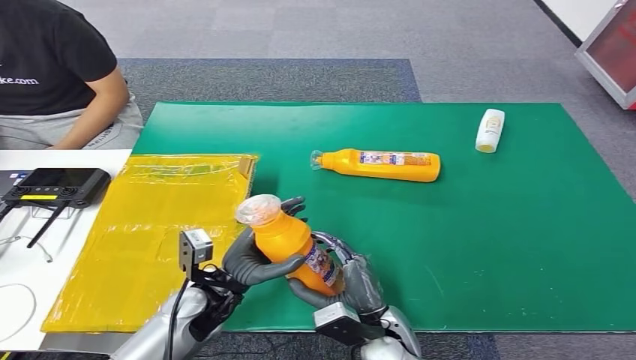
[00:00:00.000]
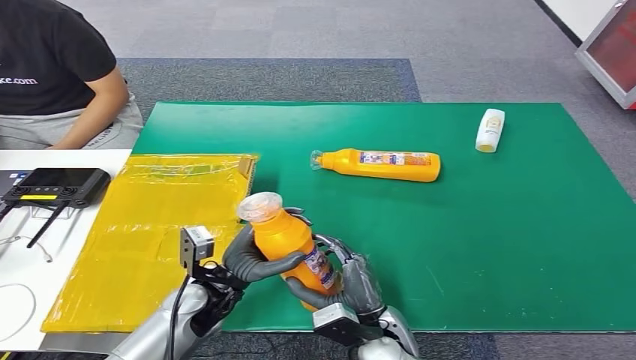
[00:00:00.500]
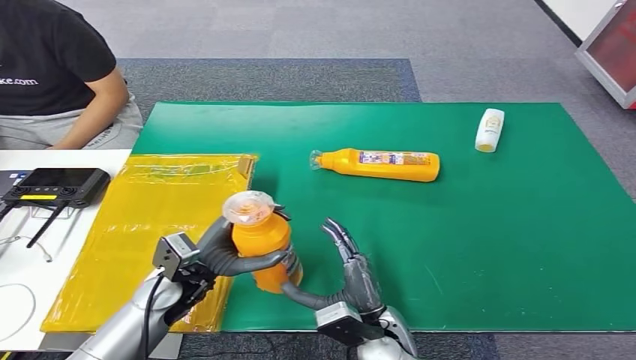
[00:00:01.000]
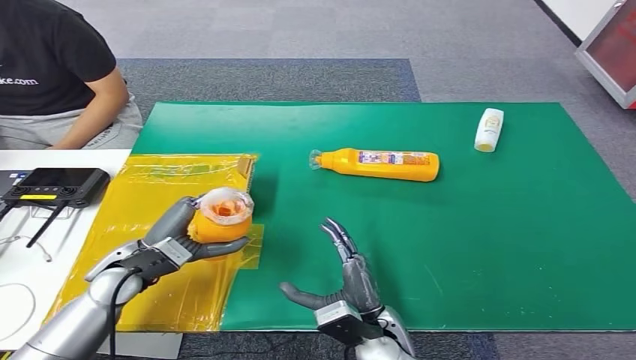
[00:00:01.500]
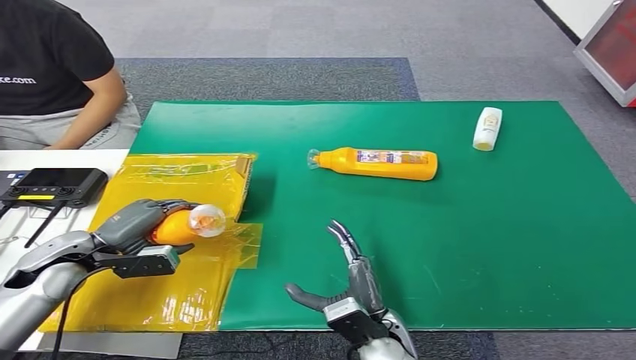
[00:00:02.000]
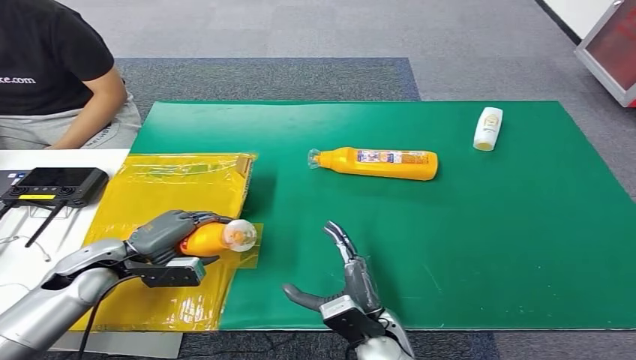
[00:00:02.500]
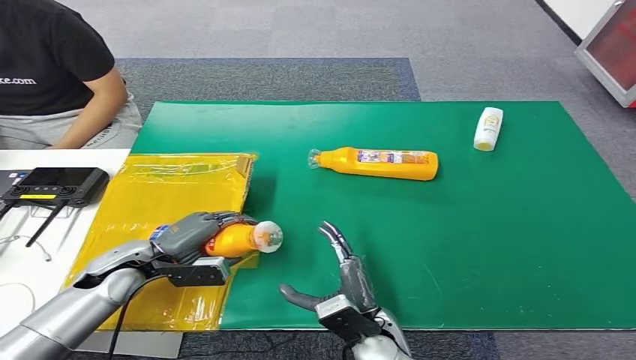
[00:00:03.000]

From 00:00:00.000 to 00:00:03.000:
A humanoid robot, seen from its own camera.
Step, from 00:00:00.000 to 00:00:03.000: Turn the bottle to the front side.
From 00:00:00.000 to 00:00:01.500: The left hand moves to the left, approximately 10 cm.
From 00:00:01.500 to 00:00:03.000: The left hand moves about 10 cm to the left and comes back.

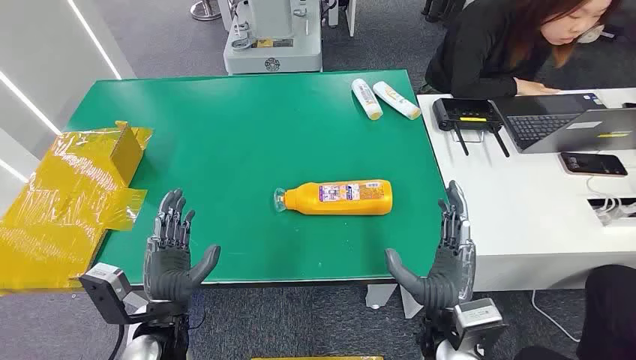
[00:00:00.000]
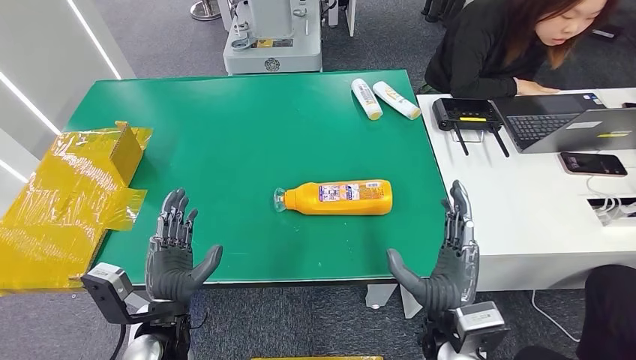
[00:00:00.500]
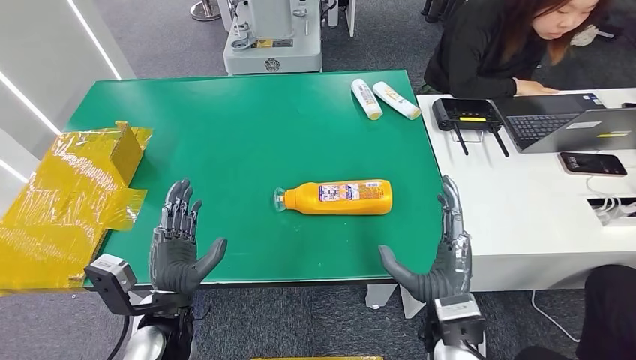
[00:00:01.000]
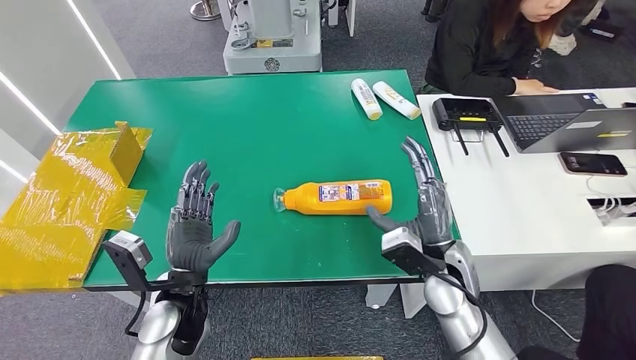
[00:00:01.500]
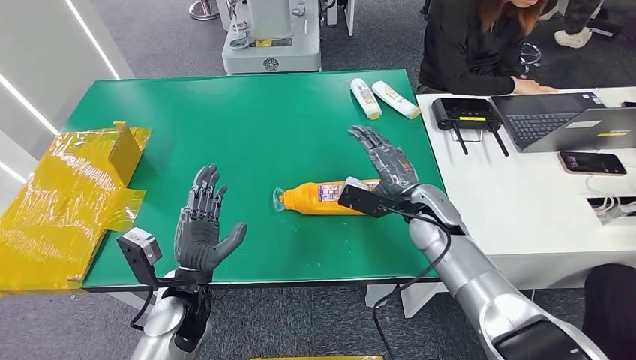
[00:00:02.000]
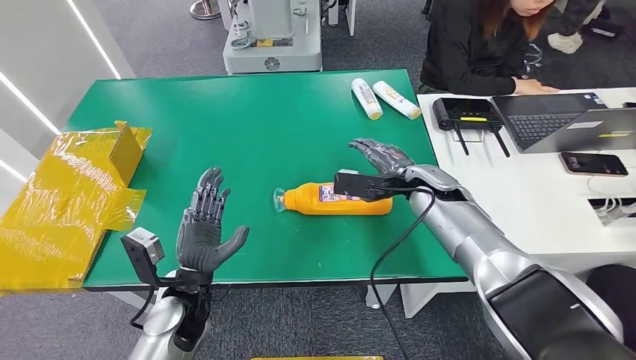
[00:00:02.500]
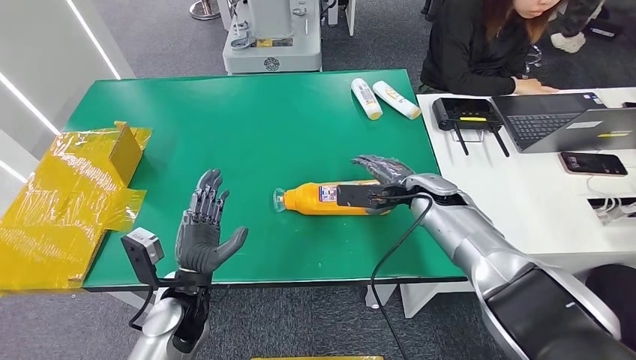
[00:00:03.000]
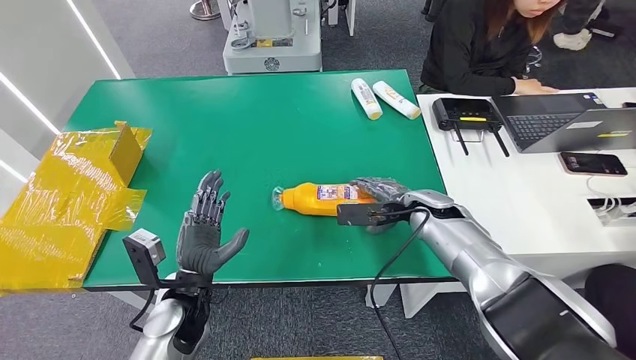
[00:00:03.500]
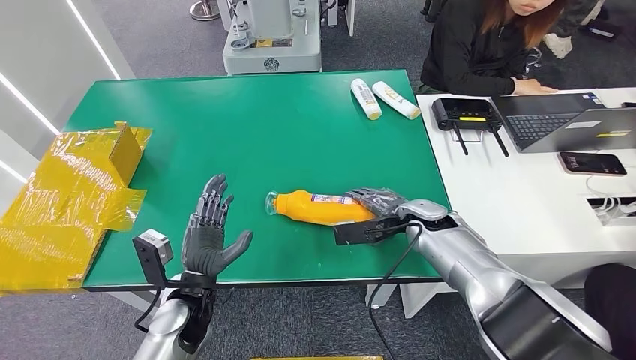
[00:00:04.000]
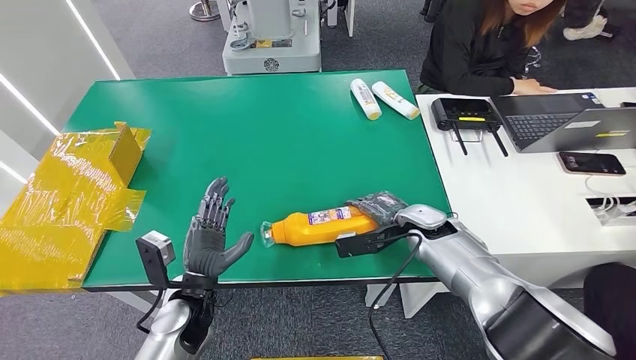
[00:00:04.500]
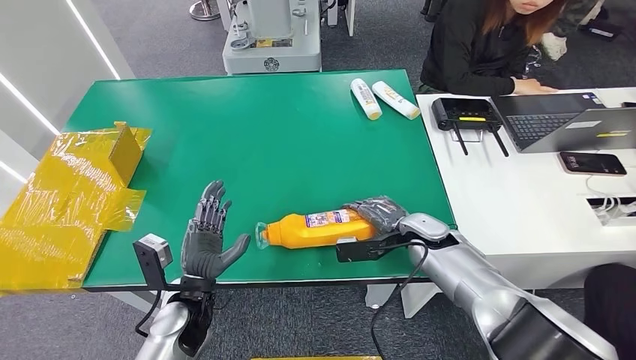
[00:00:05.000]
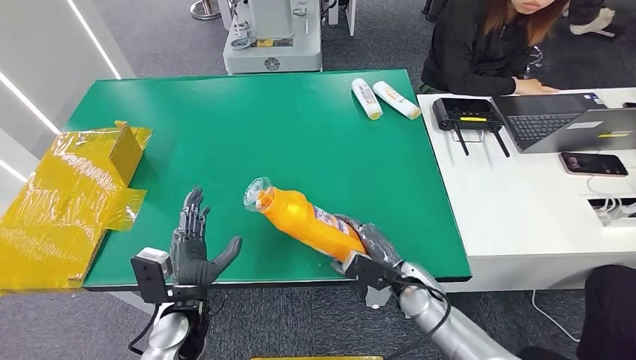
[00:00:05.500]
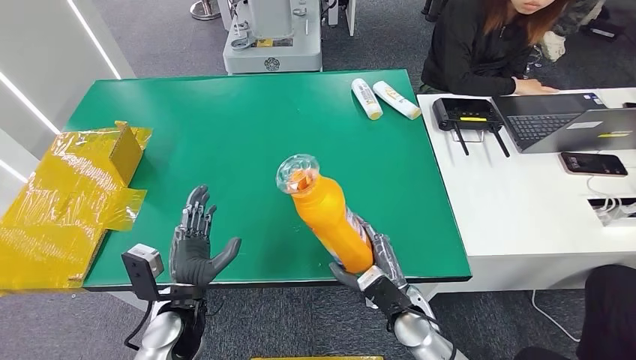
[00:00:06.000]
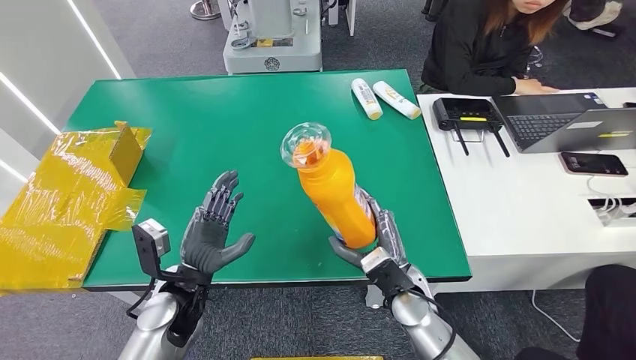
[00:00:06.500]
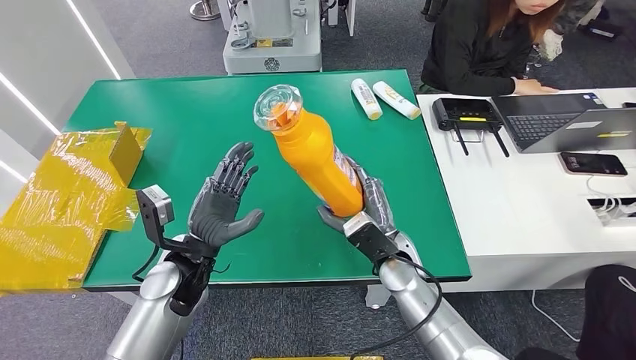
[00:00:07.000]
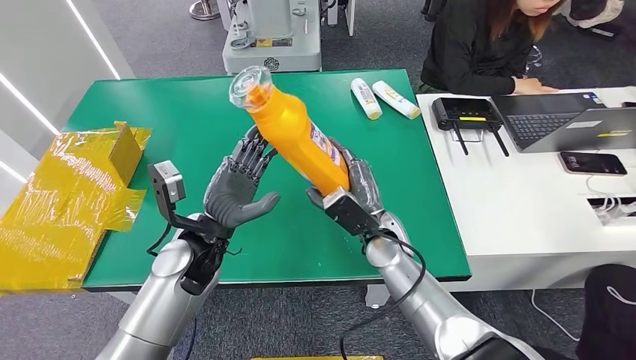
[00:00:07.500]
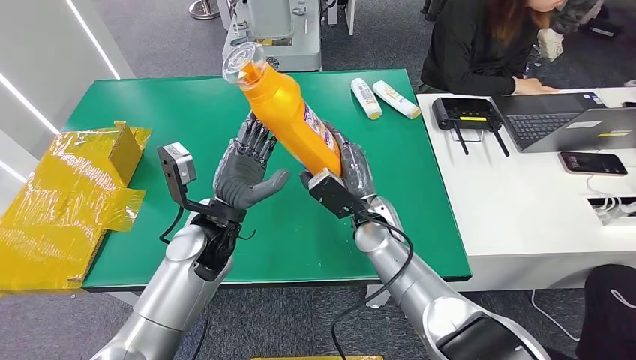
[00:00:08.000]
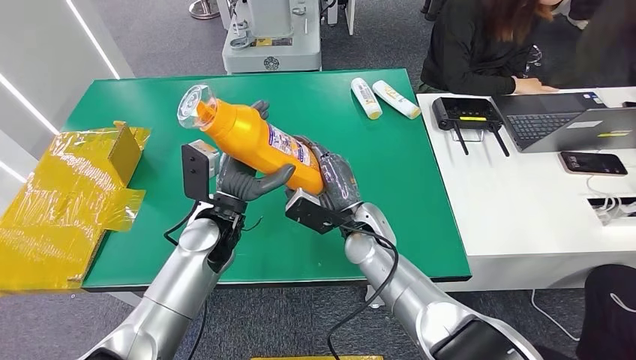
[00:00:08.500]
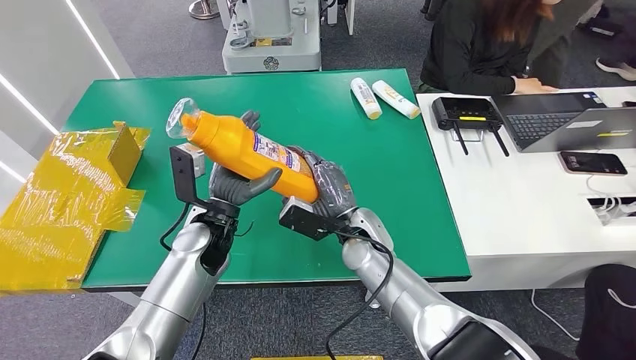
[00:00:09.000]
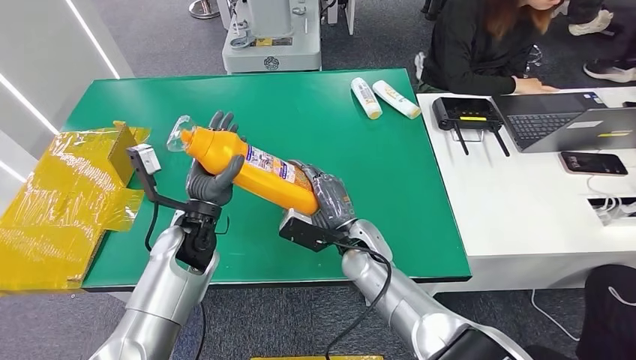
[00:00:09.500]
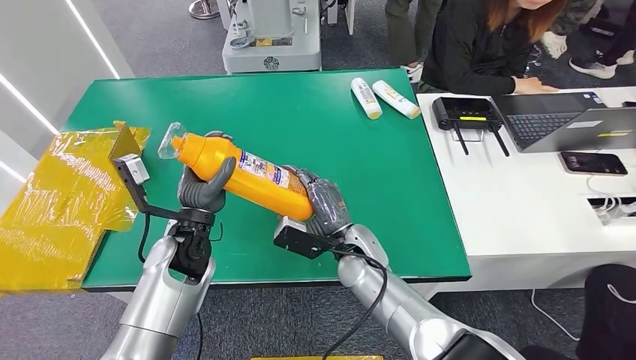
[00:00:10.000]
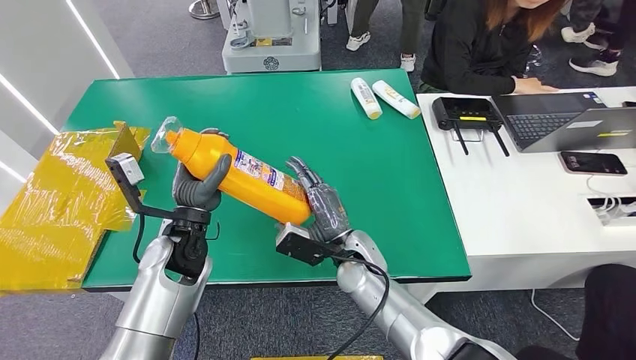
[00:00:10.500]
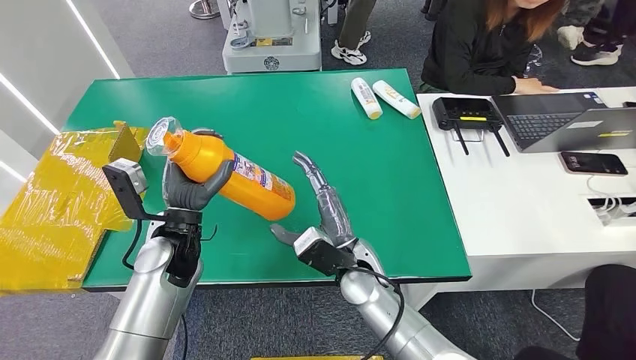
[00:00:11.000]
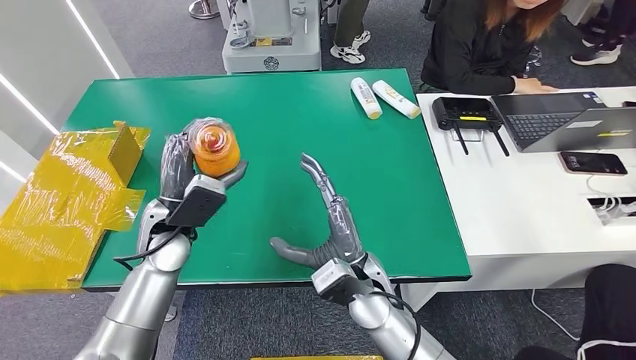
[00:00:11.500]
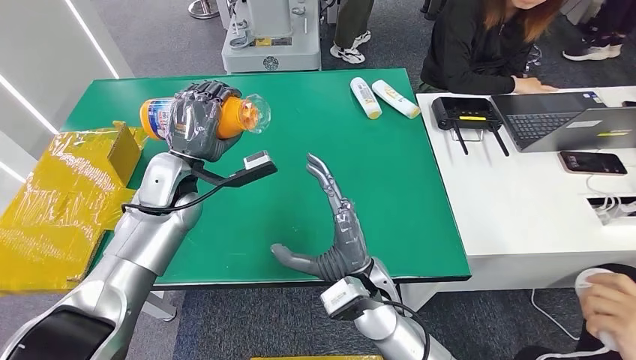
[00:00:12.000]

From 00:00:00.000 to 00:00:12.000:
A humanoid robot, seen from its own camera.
Step, from 00:00:00.000 to 00:00:06.000: Pick up the bottle from the table.
From 00:00:04.000 to 00:00:06.000: The right hand goes roughly 15 cm backward and downward.
From 00:00:06.000 to 00:00:08.000: The right hand goes some 20 cm forward, upward and to the left; the left hand is displaced upward, forward and to the right by about 15 cm.

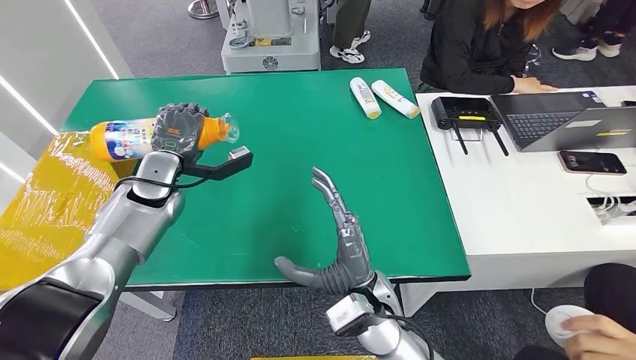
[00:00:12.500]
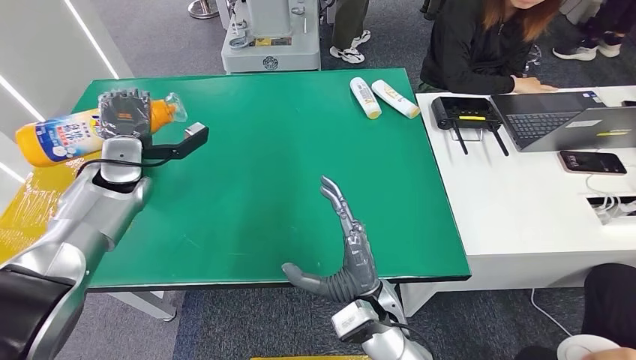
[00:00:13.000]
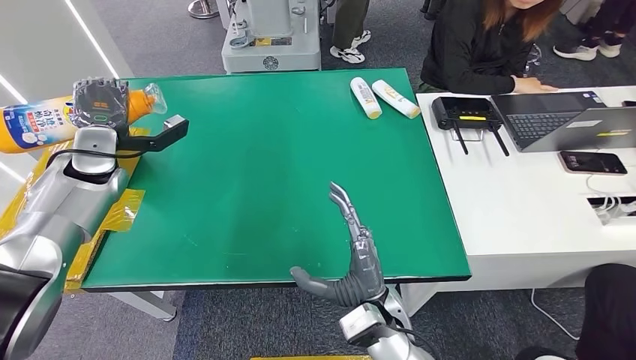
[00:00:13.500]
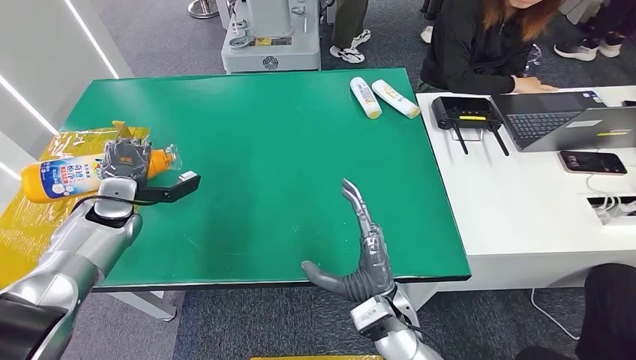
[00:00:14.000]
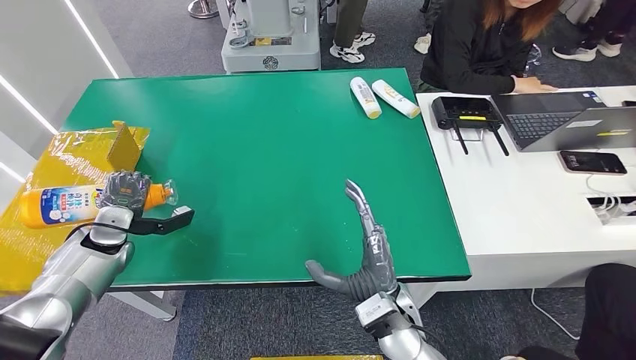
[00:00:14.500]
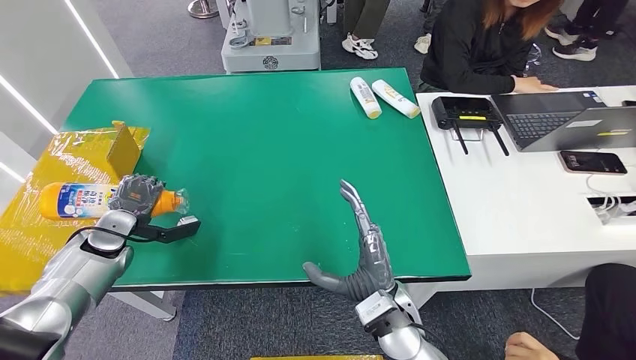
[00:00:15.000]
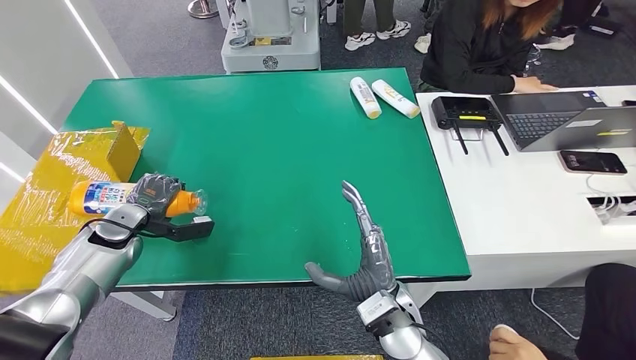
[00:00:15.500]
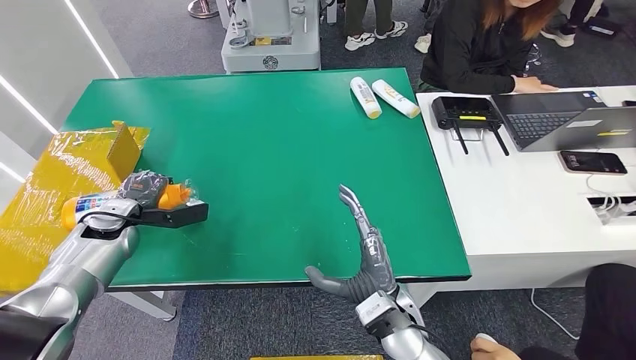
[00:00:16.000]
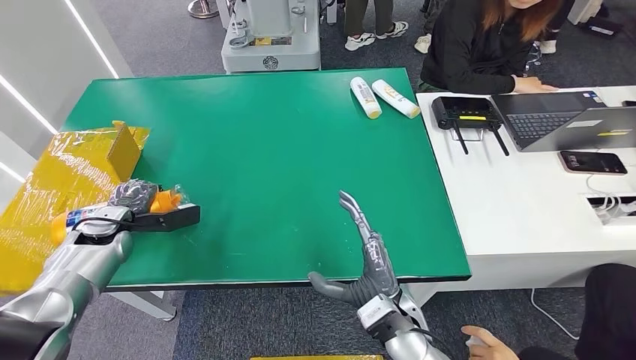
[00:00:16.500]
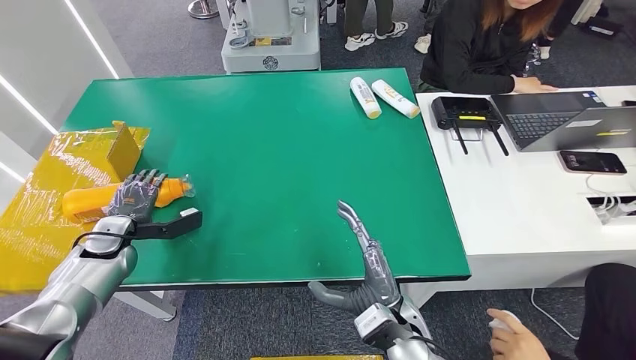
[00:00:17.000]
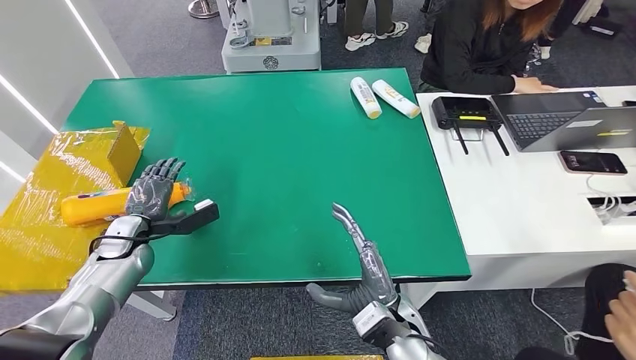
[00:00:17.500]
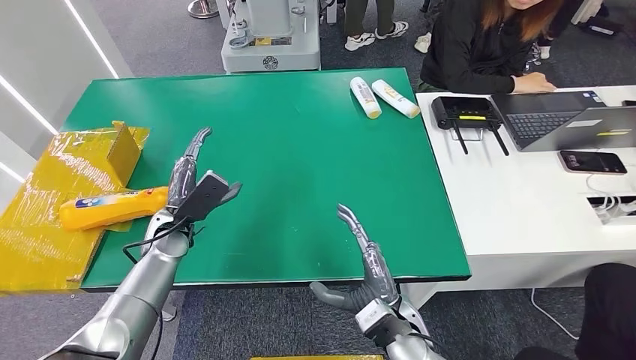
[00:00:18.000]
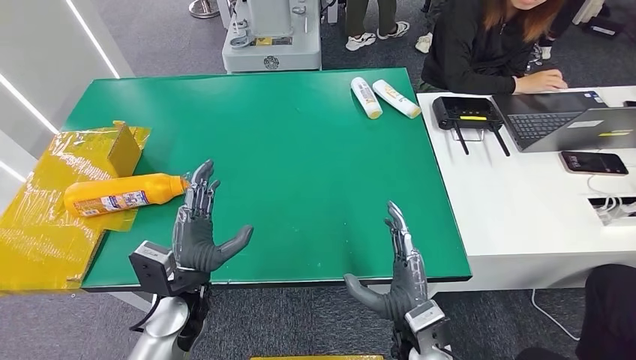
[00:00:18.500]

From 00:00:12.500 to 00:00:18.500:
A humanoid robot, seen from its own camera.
Step, from 00:00:12.500 to 00:00:18.500: Turn the bottle to the front side.
From 00:00:12.500 to 00:00:14.500: The left hand moves to the left, downward and backward, some 15 cm.
From 00:00:16.500 to 00:00:18.500: The left hand is displaced to the right and backward by approximately 25 cm.
